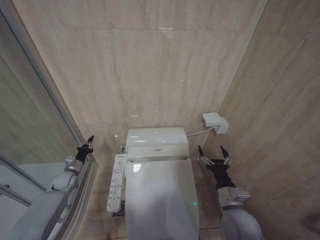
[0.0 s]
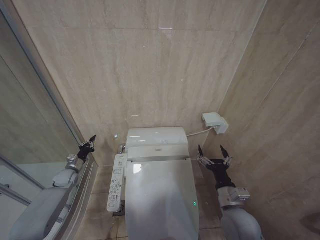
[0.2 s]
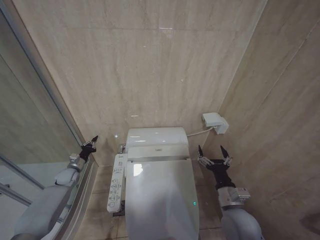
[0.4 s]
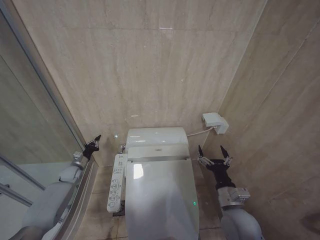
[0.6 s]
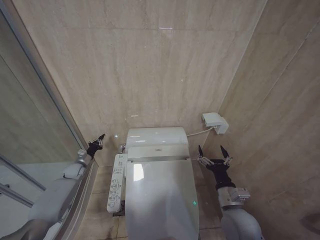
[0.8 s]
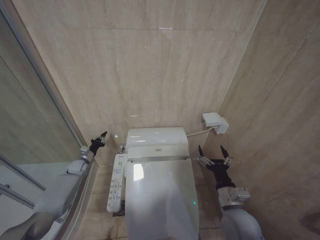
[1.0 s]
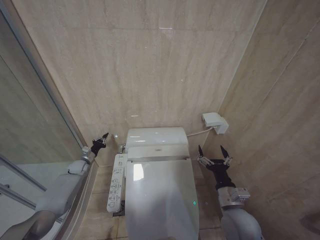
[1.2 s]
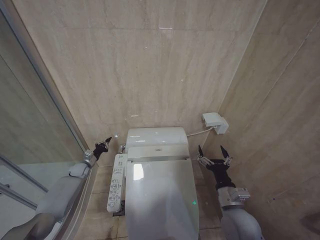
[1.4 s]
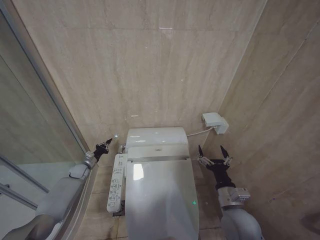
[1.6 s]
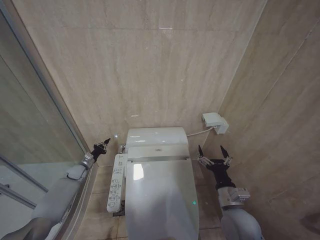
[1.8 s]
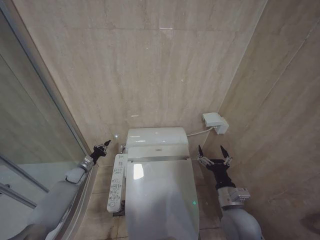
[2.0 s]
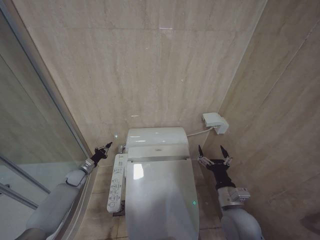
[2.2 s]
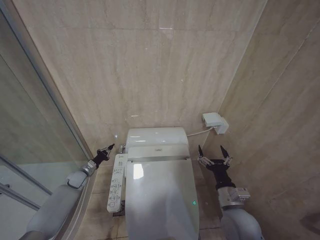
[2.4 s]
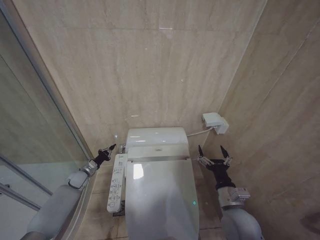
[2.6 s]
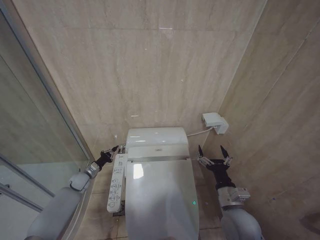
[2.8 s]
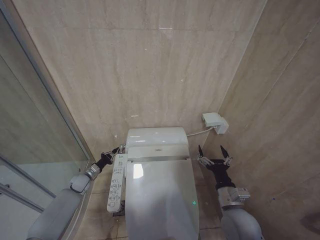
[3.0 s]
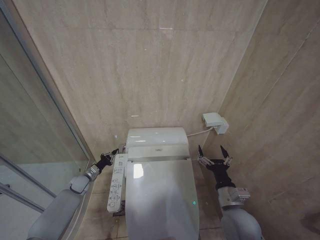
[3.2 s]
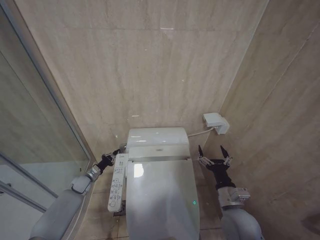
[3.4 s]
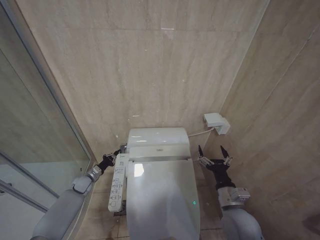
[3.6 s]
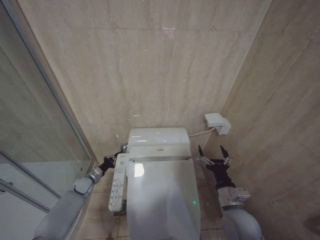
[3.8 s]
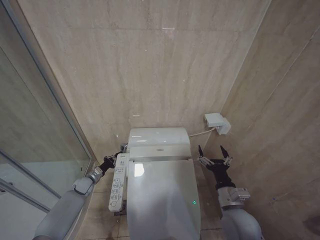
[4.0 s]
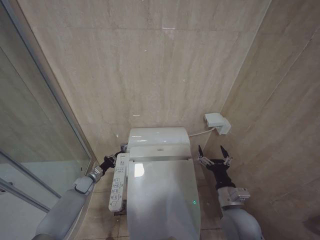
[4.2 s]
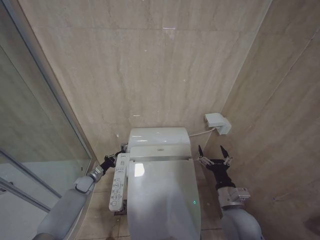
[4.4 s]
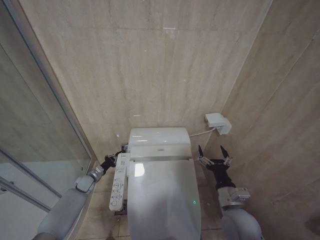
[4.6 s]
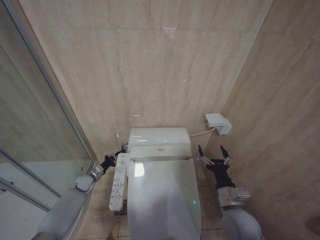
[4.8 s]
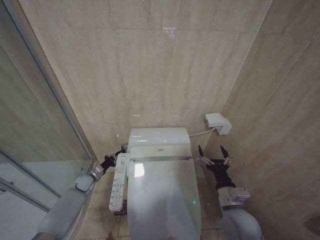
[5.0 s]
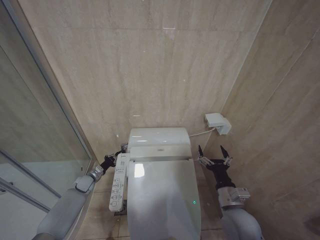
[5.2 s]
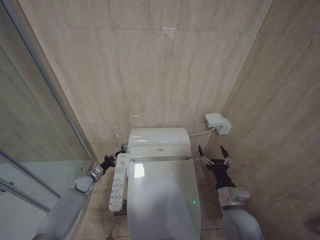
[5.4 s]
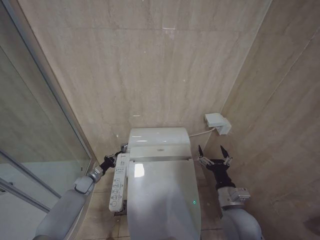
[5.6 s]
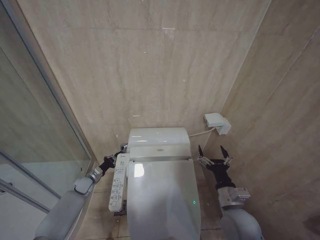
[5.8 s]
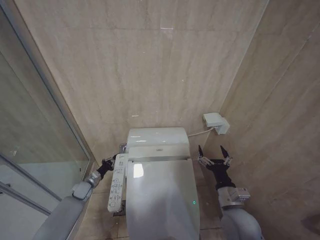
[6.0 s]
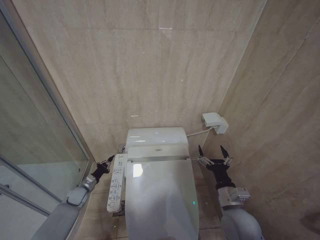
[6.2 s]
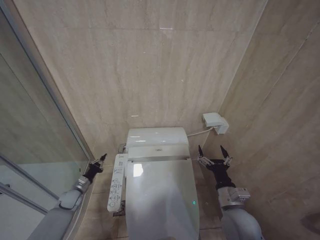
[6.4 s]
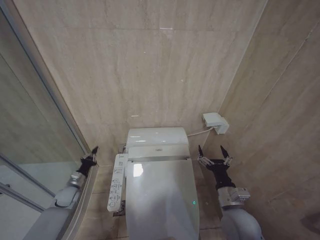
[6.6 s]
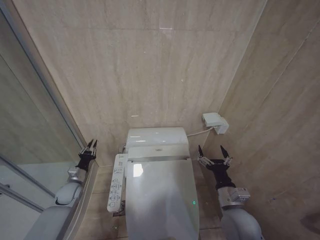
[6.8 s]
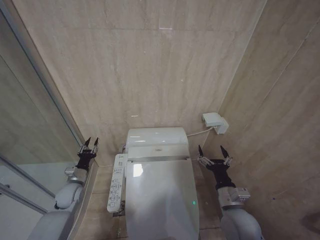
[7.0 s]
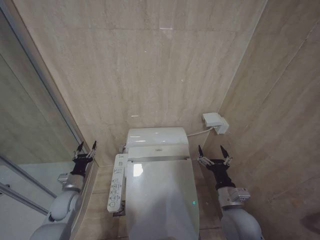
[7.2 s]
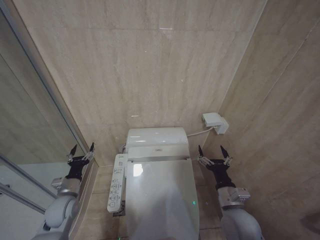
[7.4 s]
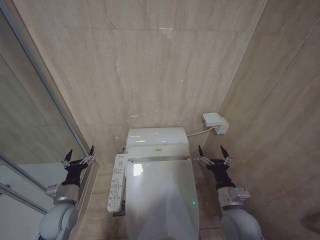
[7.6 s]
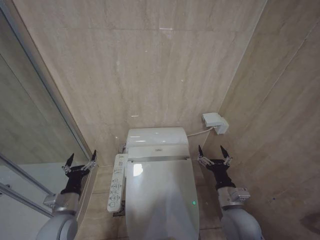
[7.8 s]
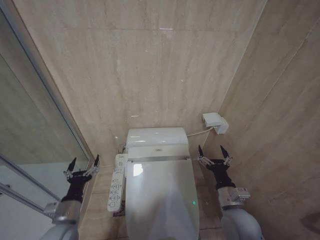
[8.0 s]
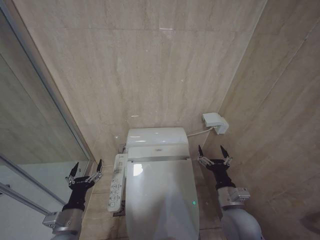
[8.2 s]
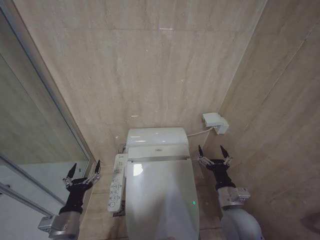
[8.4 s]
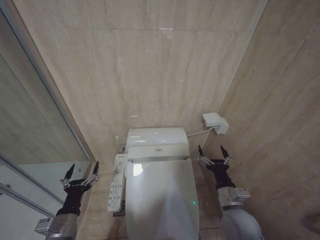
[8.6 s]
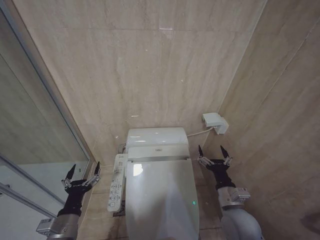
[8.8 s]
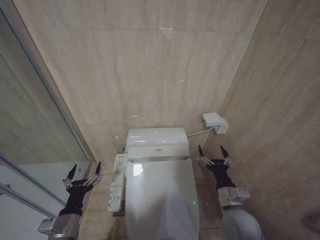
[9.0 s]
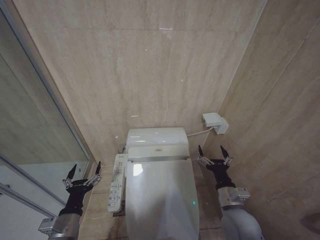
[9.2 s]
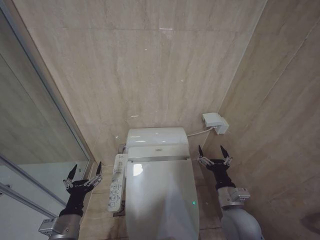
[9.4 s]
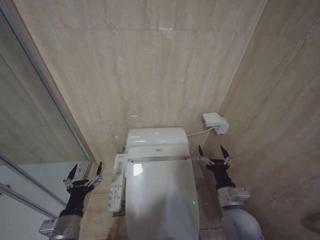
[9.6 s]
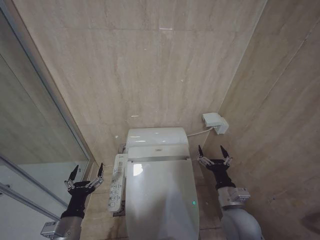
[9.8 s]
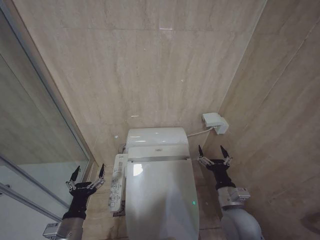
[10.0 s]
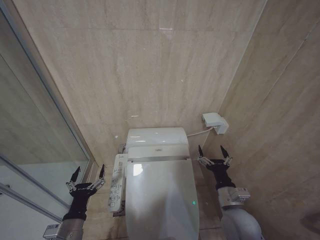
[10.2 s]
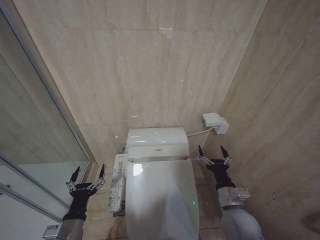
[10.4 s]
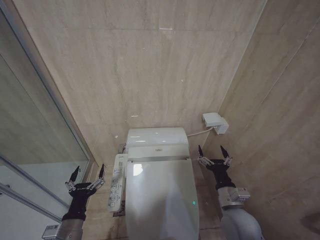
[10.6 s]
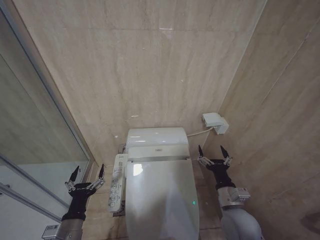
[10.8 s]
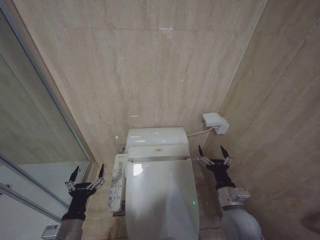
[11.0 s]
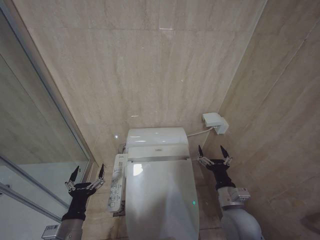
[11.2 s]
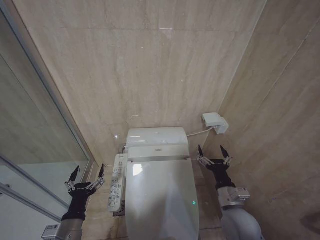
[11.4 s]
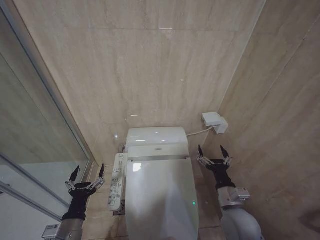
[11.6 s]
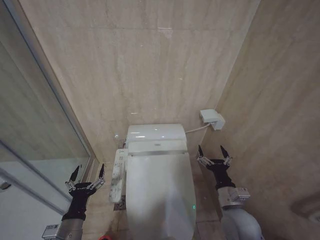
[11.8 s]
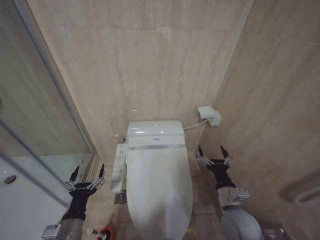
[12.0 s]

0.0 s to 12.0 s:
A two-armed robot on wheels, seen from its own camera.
Task of the whole recording: Open the toilet lid, clean the toilet bowl with a toilet brush, close the toilet lid, and flush.
0.0 to 1.6 s: The left gripper moves forward, some 5 cm.
1.6 to 3.0 s: The left gripper is displaced backward by roughly 5 cm.
3.0 to 4.4 s: The grippers move only a little.
4.4 to 6.0 s: Neither gripper changes place.
6.0 to 7.6 s: The left gripper goes some 20 cm backward and upward, and opens its fingers.
7.6 to 9.0 s: The left gripper shifts approximately 10 cm backward and to the right.
9.0 to 10.4 s: The grippers move only a little.
10.4 to 12.0 s: Both grippers stay put.

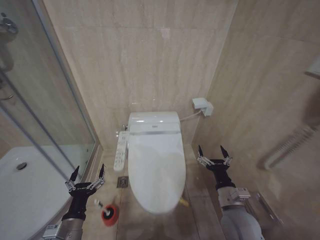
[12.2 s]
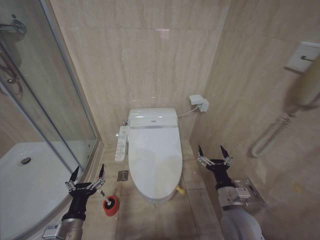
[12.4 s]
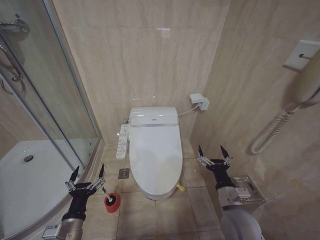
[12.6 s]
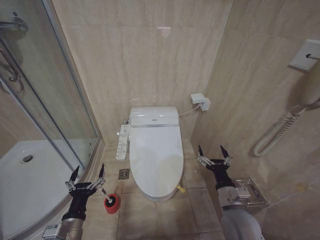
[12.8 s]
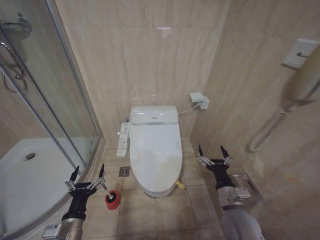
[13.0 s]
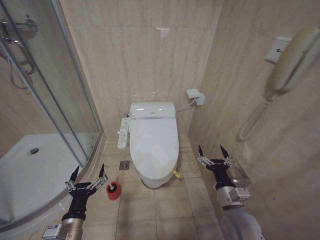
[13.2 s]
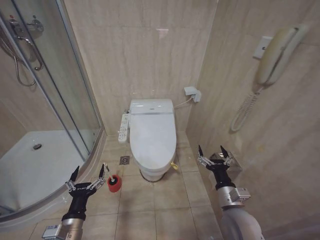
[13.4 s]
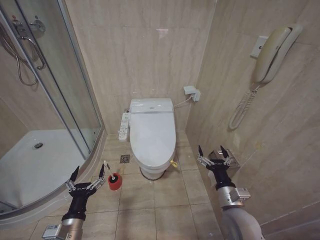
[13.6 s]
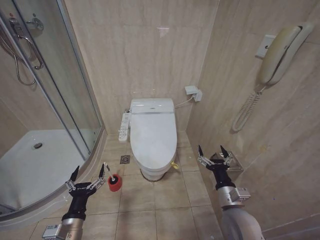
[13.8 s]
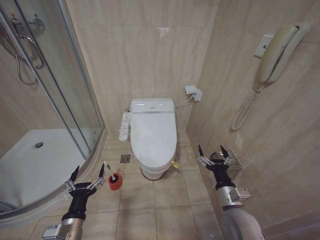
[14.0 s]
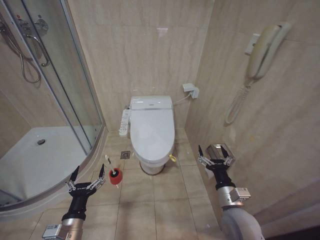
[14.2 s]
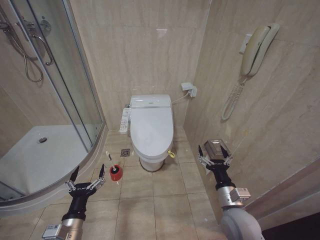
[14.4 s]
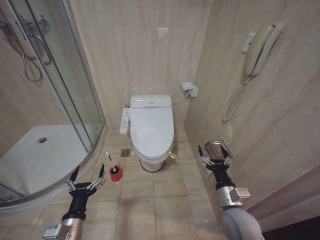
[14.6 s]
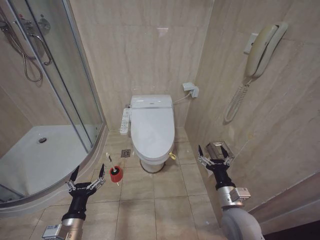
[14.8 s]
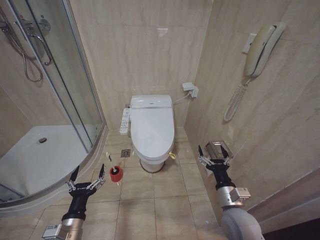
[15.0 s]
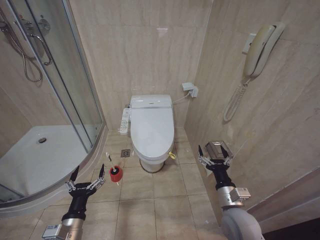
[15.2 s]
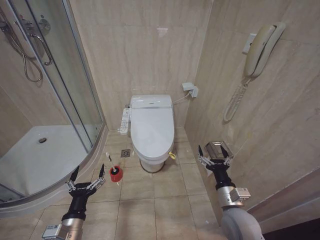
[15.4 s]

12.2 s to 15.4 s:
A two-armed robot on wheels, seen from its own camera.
Task of the whole recording: Open the toilet lid, clean the toilet bowl with a toilet brush, close the toilet lid, and flush.
13.8 to 15.4 s: The two grippers keep their place.

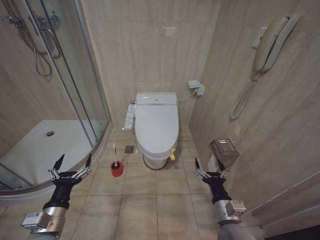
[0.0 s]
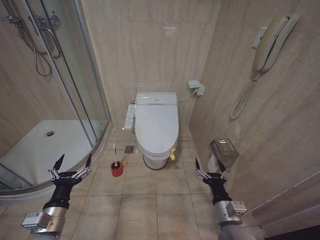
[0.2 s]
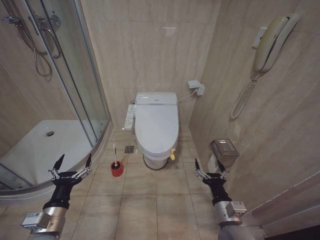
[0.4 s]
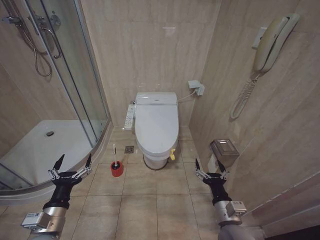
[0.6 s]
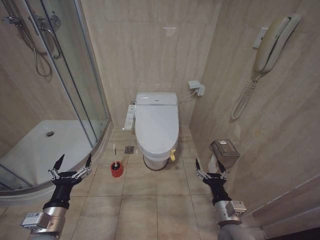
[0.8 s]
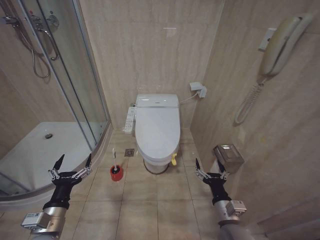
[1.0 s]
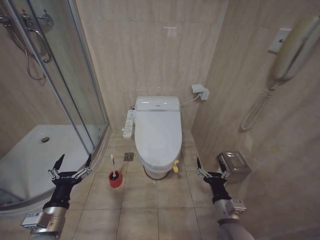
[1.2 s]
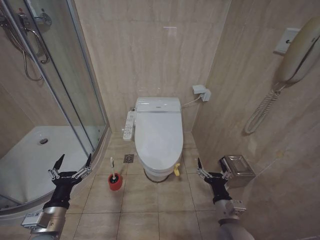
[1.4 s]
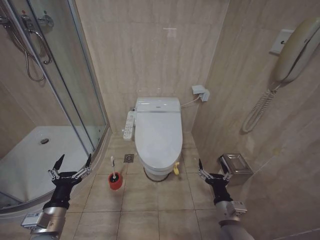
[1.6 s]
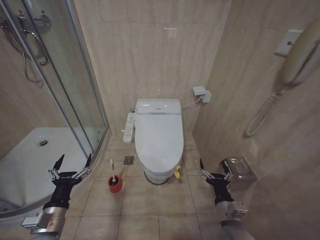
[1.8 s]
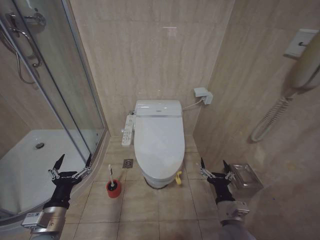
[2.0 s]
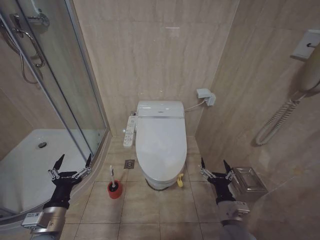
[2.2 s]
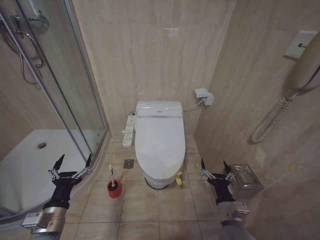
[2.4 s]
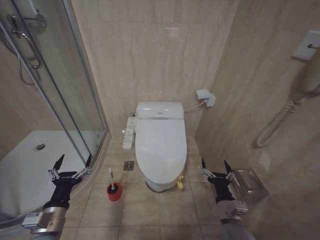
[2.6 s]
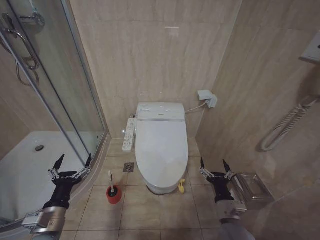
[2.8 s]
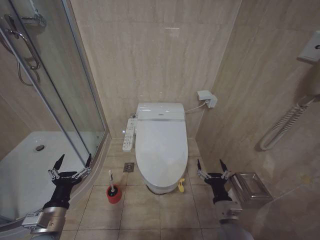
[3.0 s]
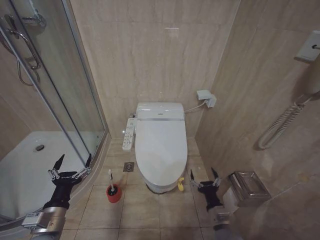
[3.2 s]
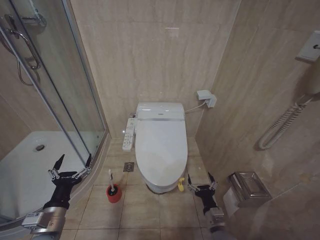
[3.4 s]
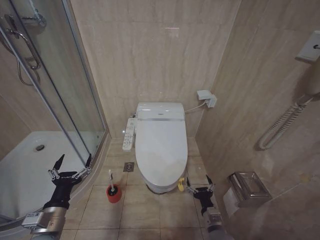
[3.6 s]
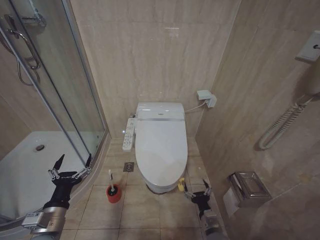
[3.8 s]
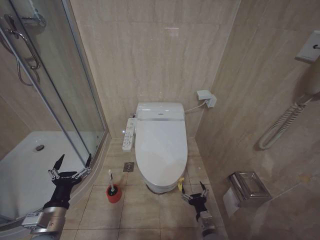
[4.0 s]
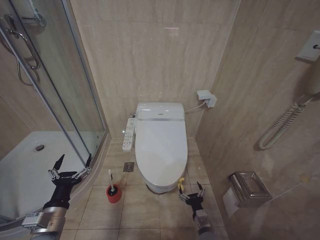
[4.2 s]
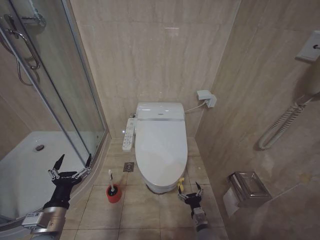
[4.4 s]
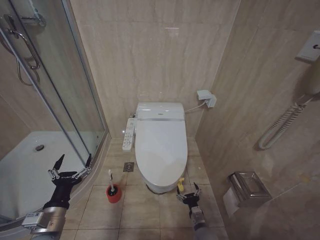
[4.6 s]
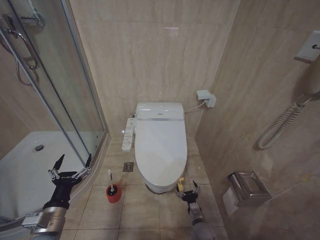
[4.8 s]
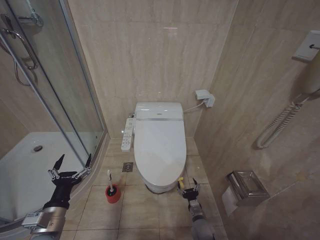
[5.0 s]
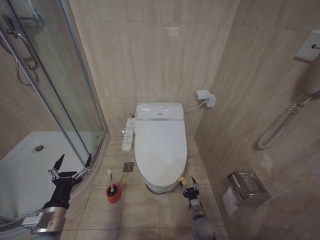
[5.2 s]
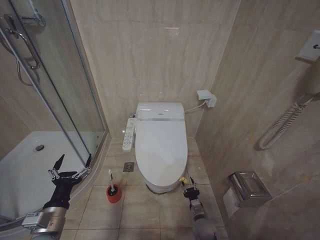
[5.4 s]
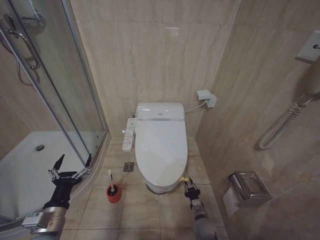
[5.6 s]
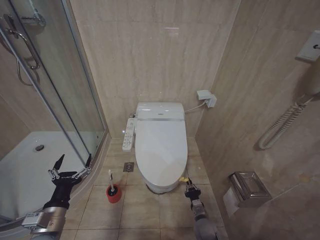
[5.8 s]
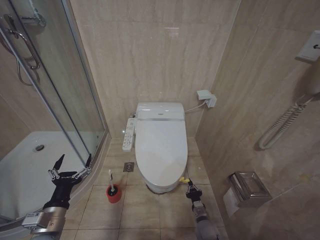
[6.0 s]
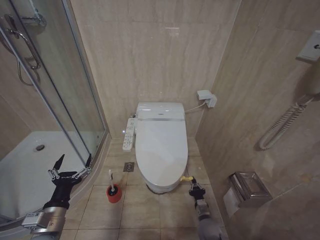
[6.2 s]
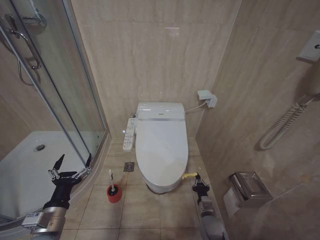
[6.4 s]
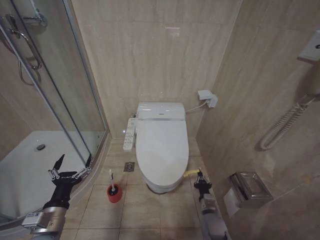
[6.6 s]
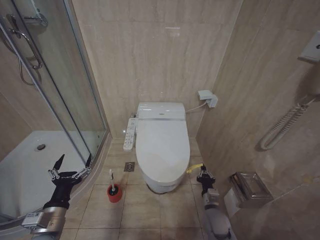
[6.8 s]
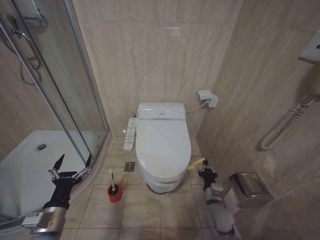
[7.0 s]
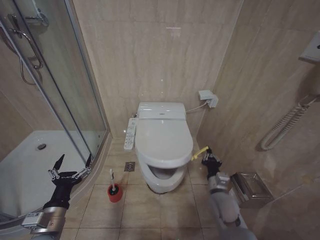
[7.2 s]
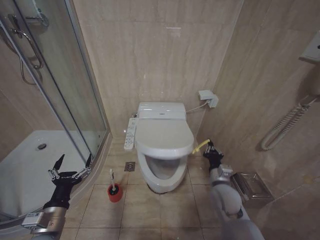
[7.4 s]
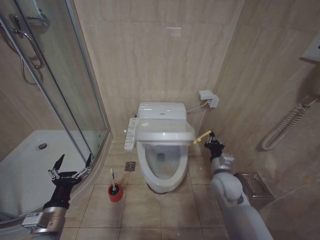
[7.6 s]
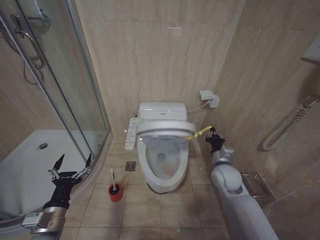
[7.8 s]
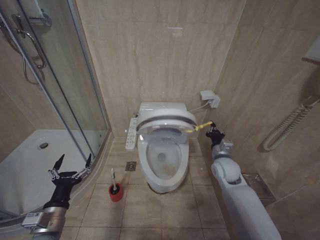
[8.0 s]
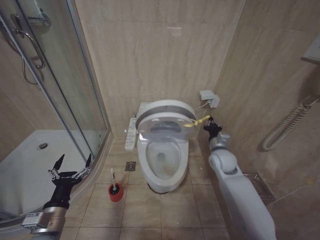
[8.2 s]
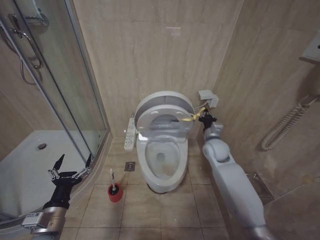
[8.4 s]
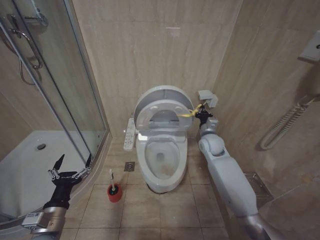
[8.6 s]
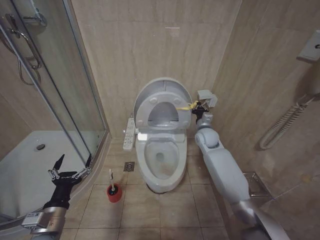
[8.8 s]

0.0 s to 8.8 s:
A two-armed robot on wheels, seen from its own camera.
Task of the whole recording: Open the toilet lid, clean the toilet bowl with a toilet brush, close the toilet lid, and flush.
1.4 to 3.0 s: The grippers move only a little.
3.0 to 4.4 s: The right gripper travels downward by about 15 cm.
4.4 to 5.8 s: The right gripper ends up roughly 5 cm from where it was, and closes up.
5.8 to 7.4 s: The right gripper heads upward, covering some 20 cm, and closes up.
7.4 to 8.8 s: The right gripper moves forward and upward, approximately 25 cm.
